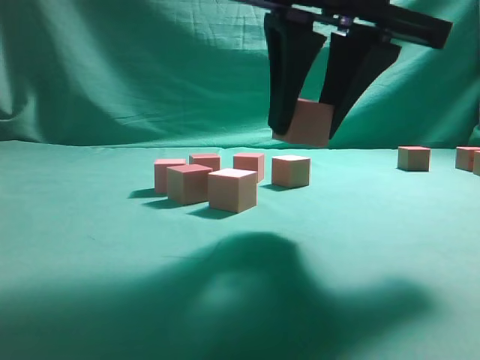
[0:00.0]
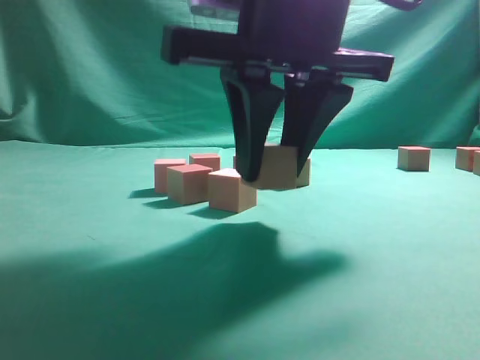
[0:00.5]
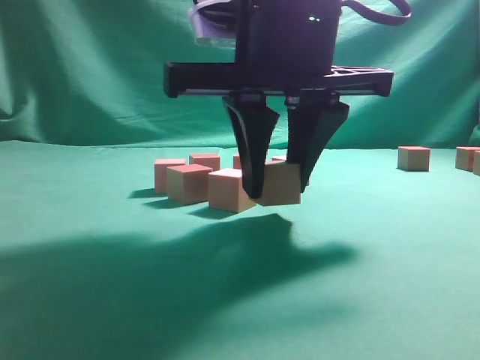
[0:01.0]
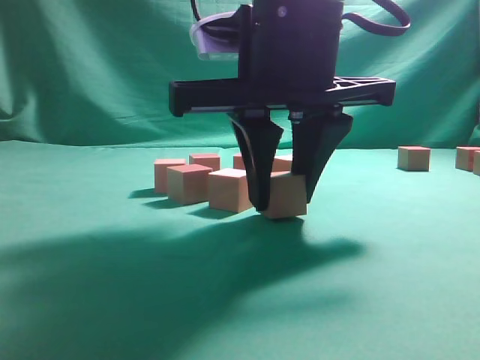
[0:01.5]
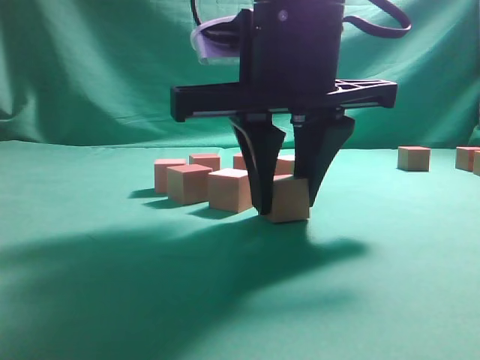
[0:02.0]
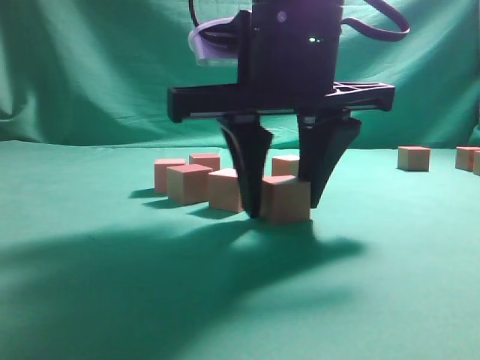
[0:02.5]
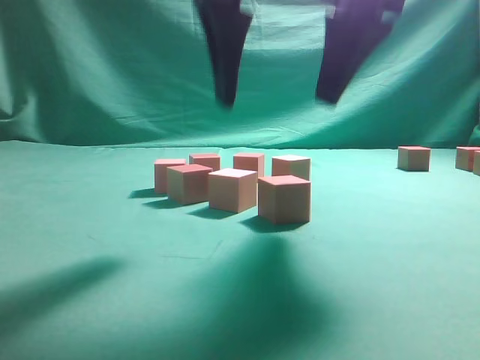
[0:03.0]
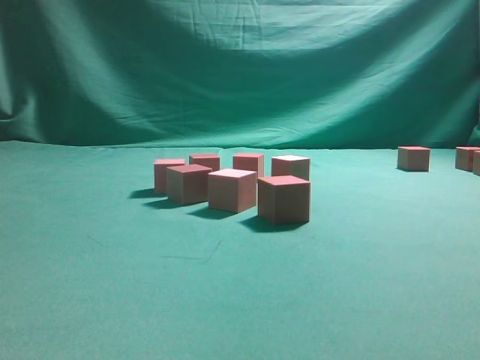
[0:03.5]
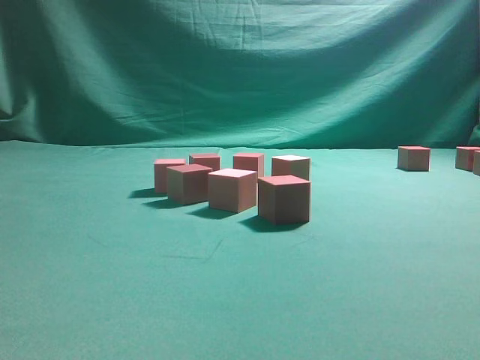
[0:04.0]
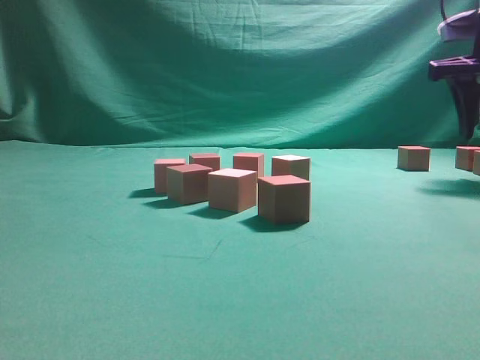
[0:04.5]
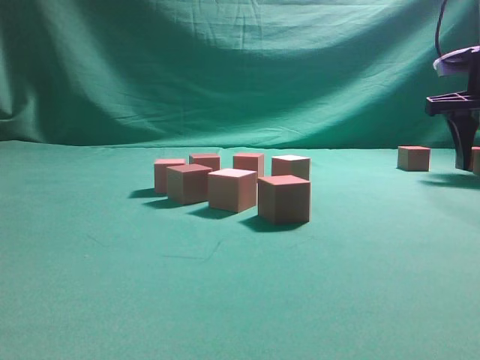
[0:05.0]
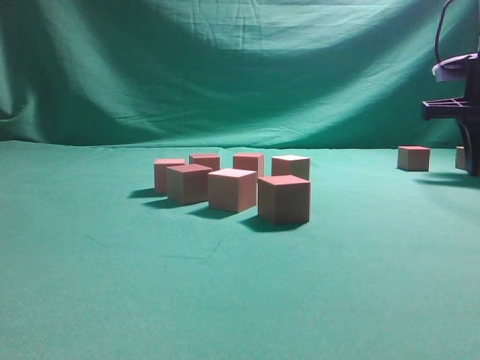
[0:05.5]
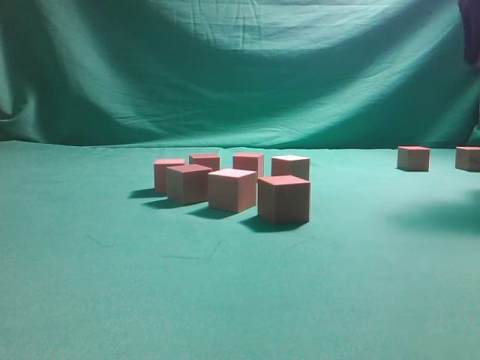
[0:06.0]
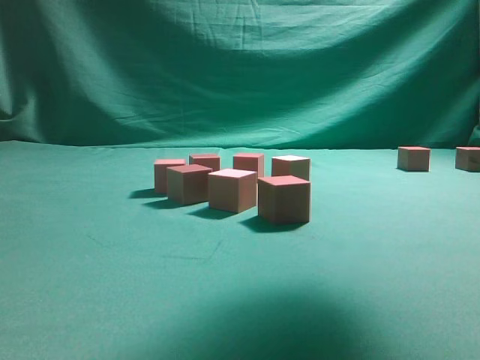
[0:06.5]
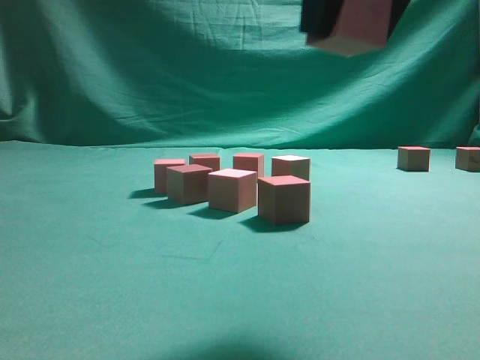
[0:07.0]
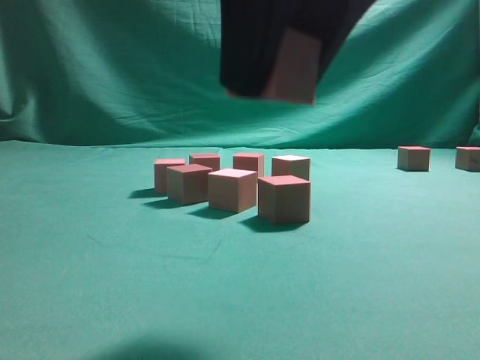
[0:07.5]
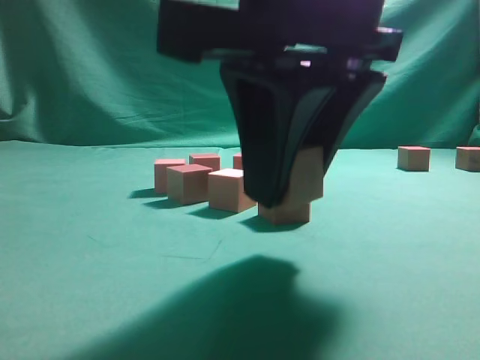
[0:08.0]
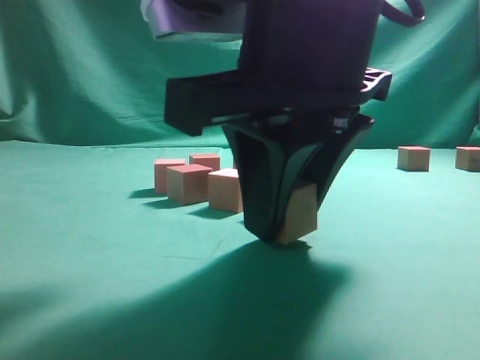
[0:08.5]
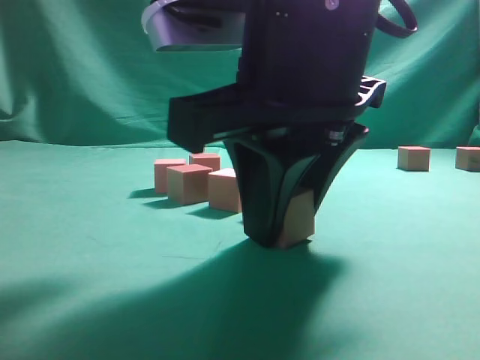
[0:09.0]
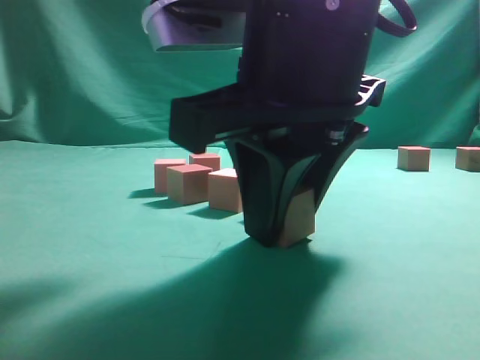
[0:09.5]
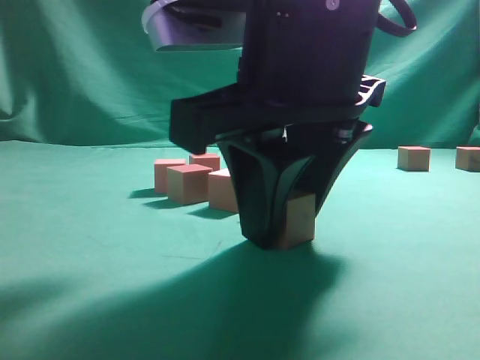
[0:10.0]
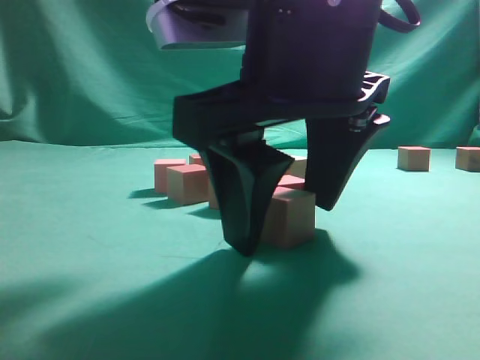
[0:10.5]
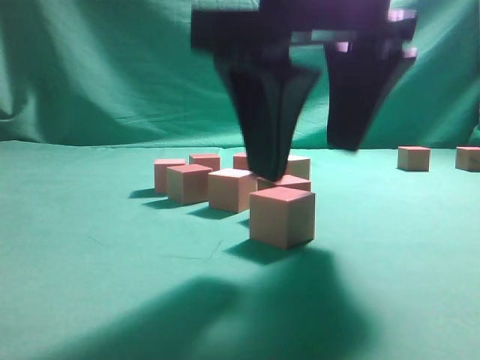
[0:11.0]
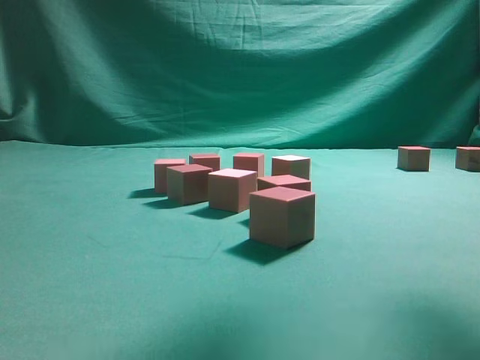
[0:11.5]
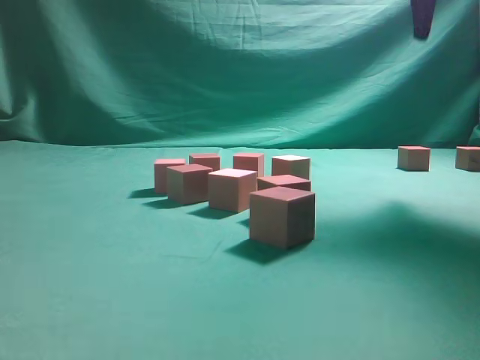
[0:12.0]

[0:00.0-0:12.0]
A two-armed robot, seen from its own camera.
Task of the whole recording: pick up the multiple cubes in two columns one by one and place them in another position on the table.
Step, 0:00.0 to 0:02.5: Place the block at the correct position to assemble the letter S.
Step, 0:03.5 to 0:05.5: Pick up the block on the table.
Step, 0:06.0 to 0:11.0: Place the block at the correct position to assemble the letter S.
0:00.0 to 0:02.0: The right gripper ends up about 5 cm from where it was.
0:02.0 to 0:04.0: The right gripper travels to the right and upward by some 25 cm, and opens its fingers.
0:04.0 to 0:06.0: The right gripper goes about 5 cm forward, travels downward and back again, approximately 10 cm each way, and closes up.
0:06.0 to 0:08.0: The right gripper is displaced to the left, backward and downward by roughly 30 cm.
0:10.0 to 0:12.0: The right gripper goes about 30 cm to the right, forward and upward, and opens its fingers.

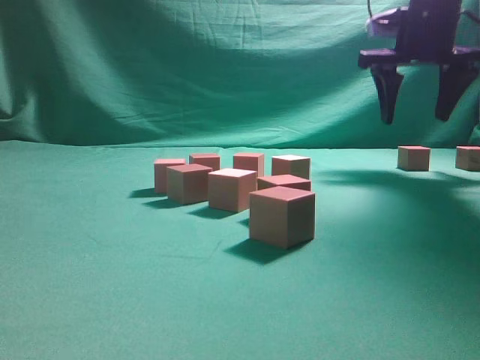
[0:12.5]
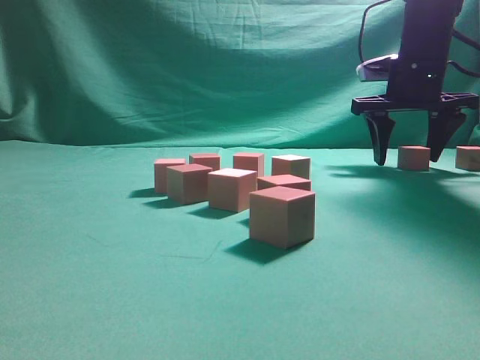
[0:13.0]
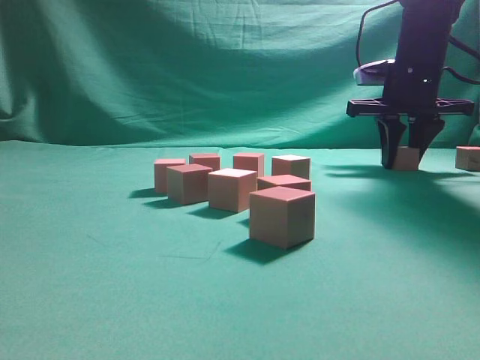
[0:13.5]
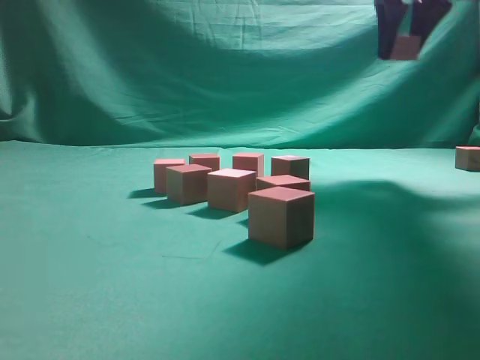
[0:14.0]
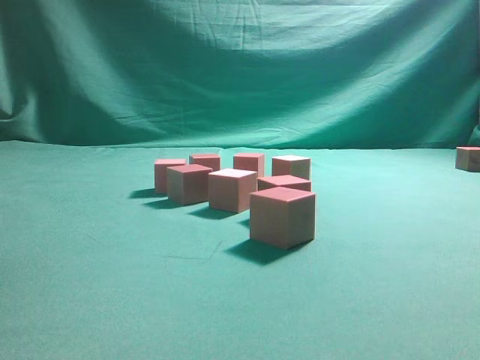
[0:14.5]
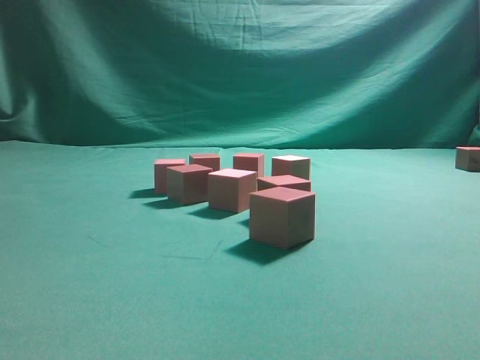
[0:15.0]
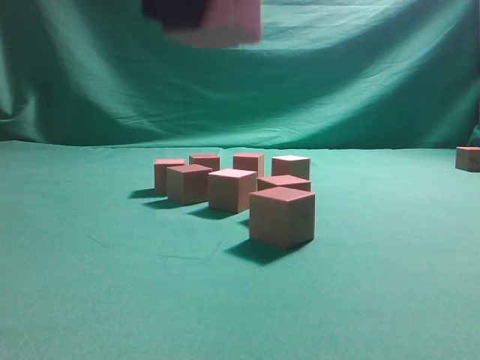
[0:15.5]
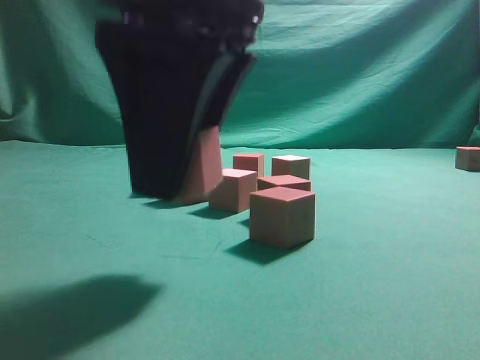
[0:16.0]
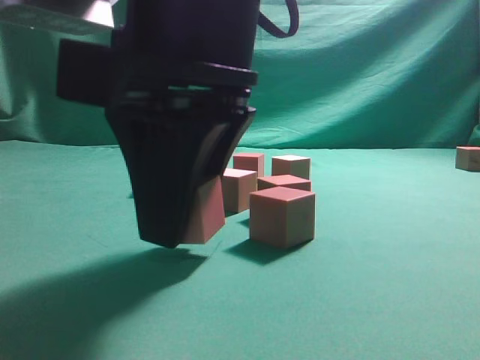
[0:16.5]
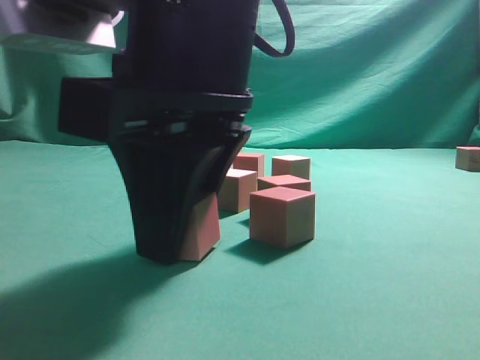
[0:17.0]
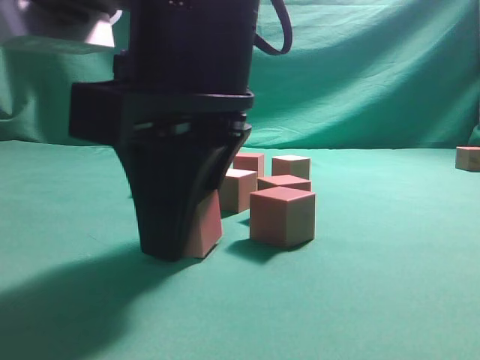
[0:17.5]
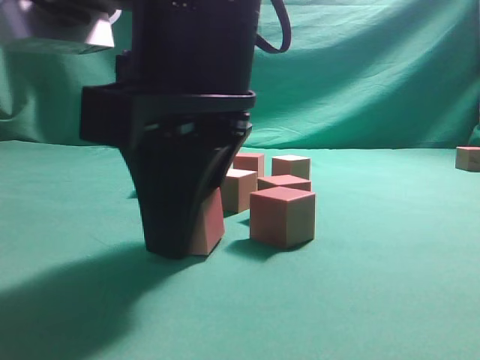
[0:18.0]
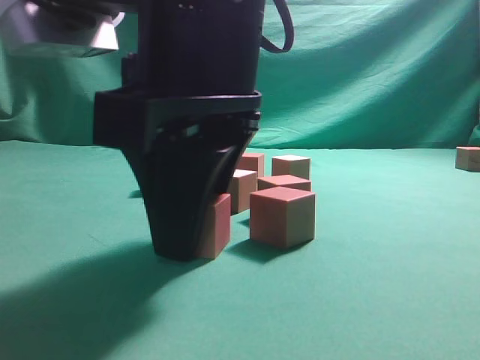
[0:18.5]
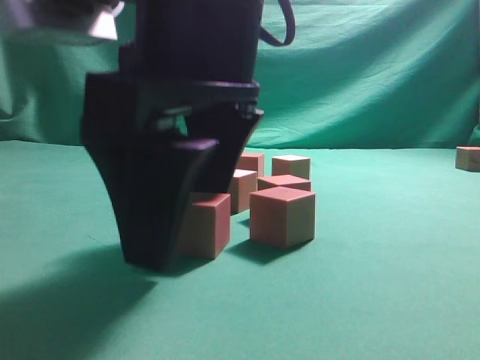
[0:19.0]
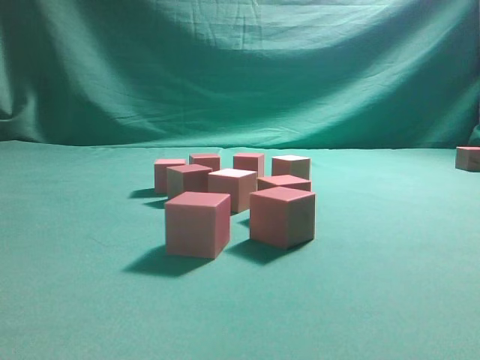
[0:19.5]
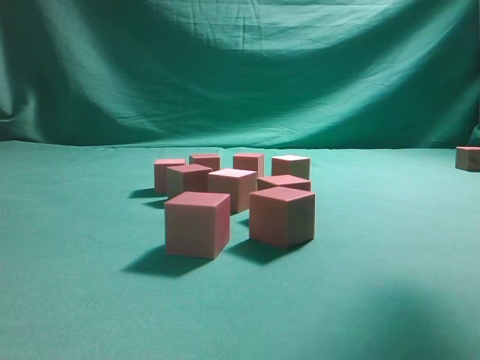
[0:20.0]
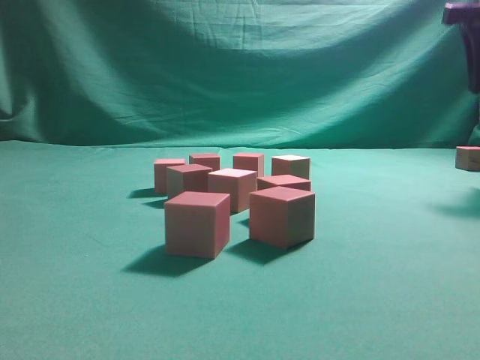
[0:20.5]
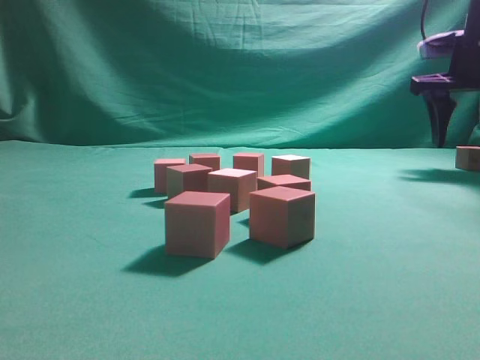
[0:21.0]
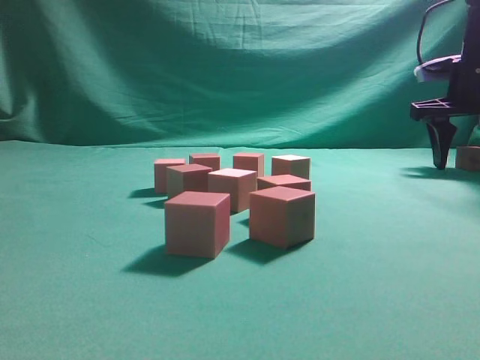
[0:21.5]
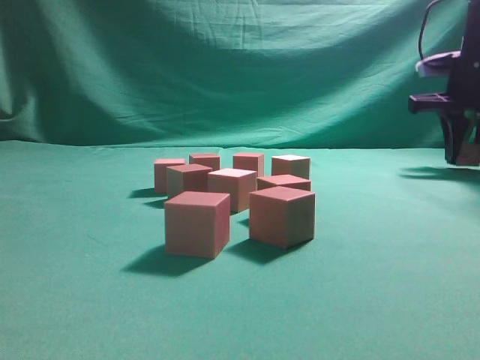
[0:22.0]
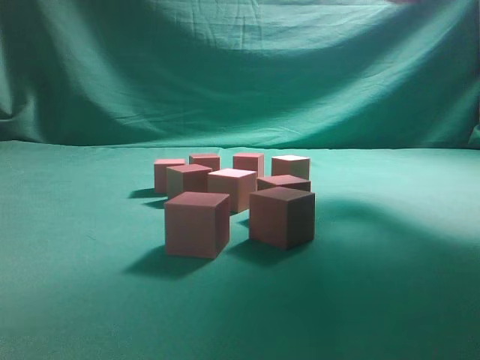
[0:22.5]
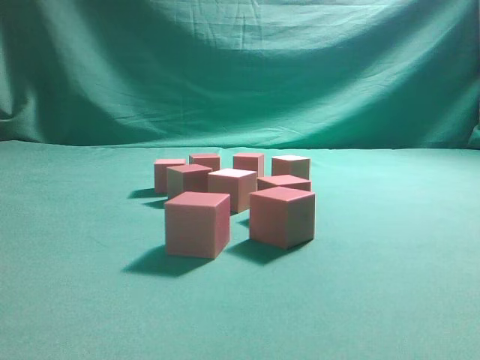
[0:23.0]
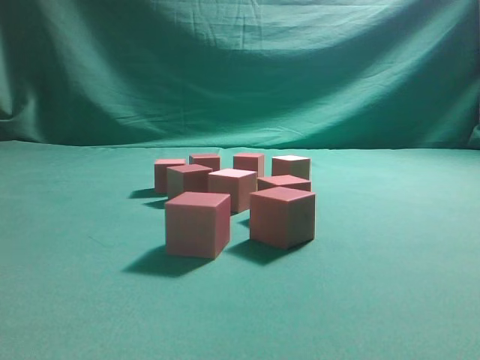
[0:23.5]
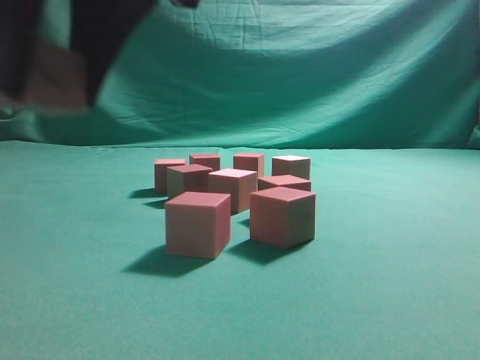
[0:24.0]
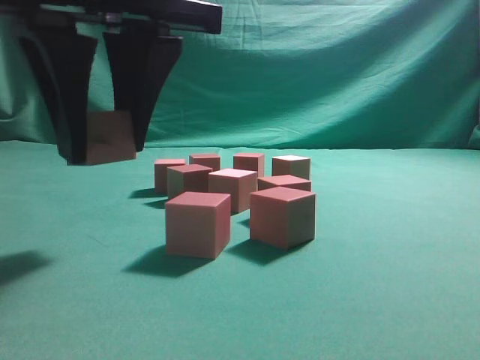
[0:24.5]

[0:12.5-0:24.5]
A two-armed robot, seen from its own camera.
Task of the whole recording: pick up the multiple cubes in two columns one by one and place them in another position on the table.
Step, 0:14.0 to 0:19.0: Place the block at the correct position to assemble the letter S.
Step, 0:19.5 to 0:22.0: Pick up the block on the table.
0:12.5 to 0:14.5: The right gripper heads upward, backward and to the left, covering roughly 30 cm, and closes.
0:14.5 to 0:16.5: The right gripper is displaced downward, backward and to the left by approximately 30 cm.
0:16.5 to 0:18.5: The two grippers keep their place.
0:18.5 to 0:20.5: The right gripper shifts some 35 cm to the right and forward, and opens.
0:20.5 to 0:22.5: The right gripper is displaced upward and to the left by roughly 15 cm, and closes its fingers.
0:22.5 to 0:24.5: The right gripper shifts approximately 35 cm to the left, backward and downward.

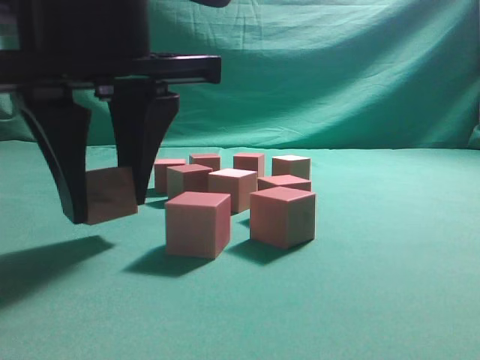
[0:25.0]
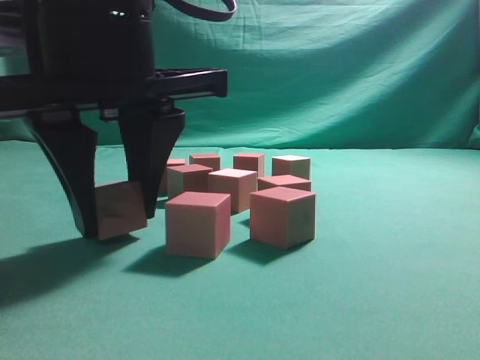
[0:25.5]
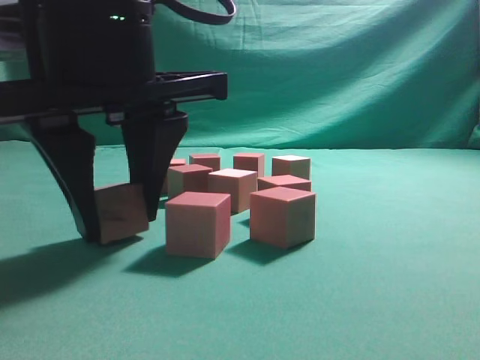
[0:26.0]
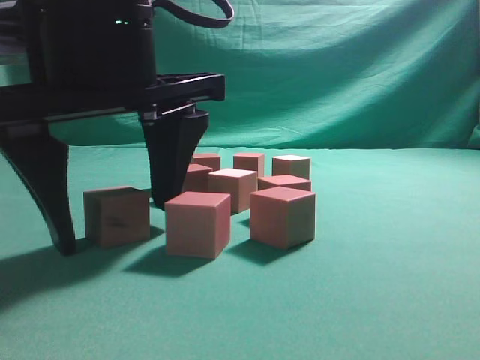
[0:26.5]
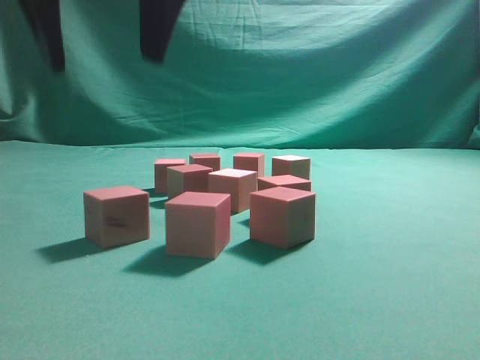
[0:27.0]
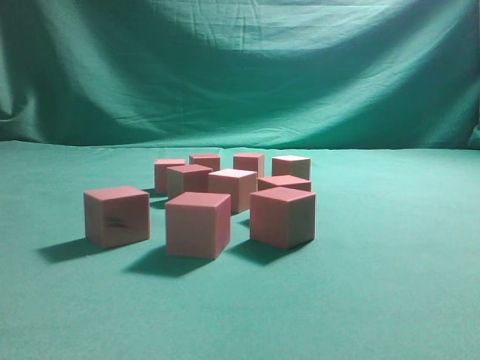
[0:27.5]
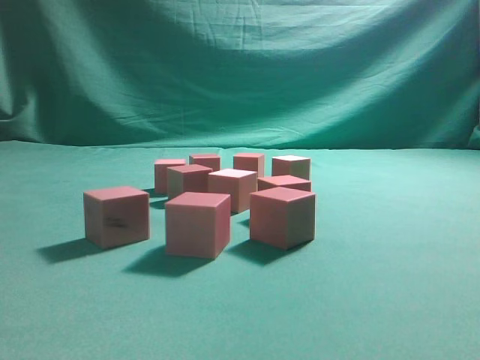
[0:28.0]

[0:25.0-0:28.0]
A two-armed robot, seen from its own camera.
Task of the whole recording: pick up the multiple cubes in two columns one by one and place them in another position on the table.
0:25.0 to 0:26.5: The right gripper opens.
0:26.5 to 0:28.0: The right gripper goes approximately 35 cm upward and to the right, and closes.
